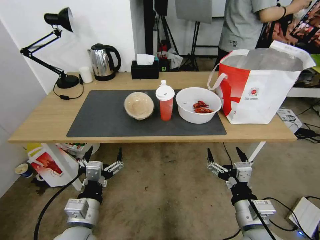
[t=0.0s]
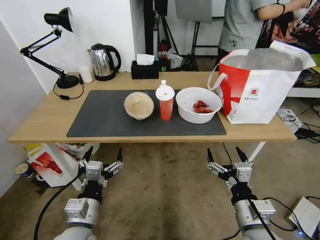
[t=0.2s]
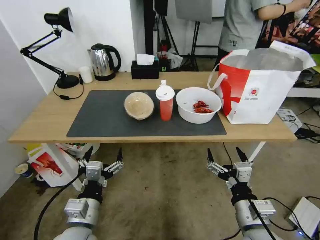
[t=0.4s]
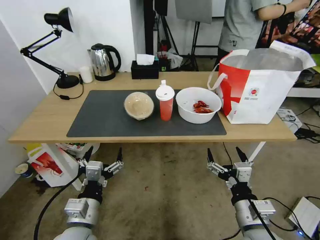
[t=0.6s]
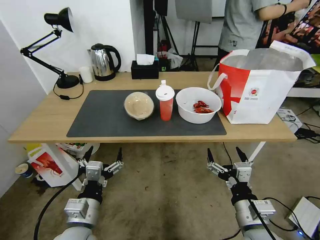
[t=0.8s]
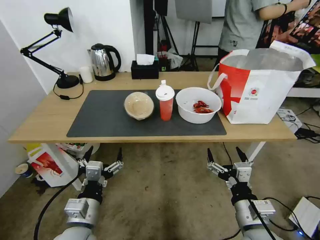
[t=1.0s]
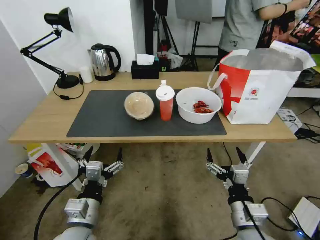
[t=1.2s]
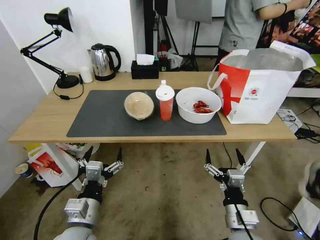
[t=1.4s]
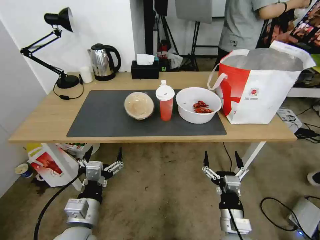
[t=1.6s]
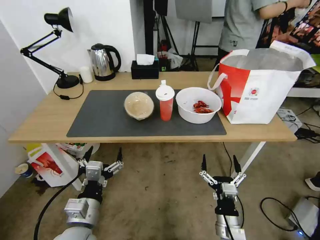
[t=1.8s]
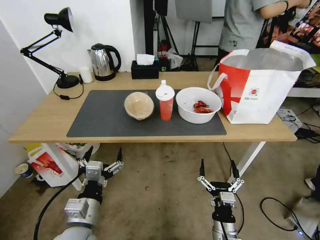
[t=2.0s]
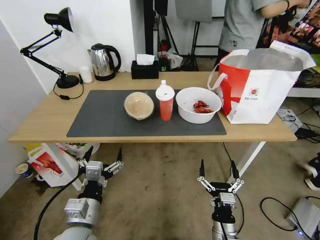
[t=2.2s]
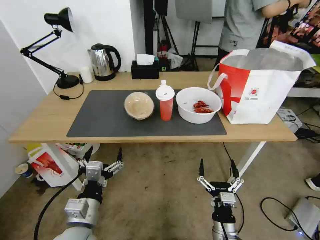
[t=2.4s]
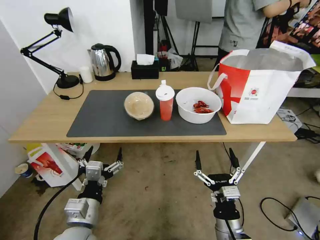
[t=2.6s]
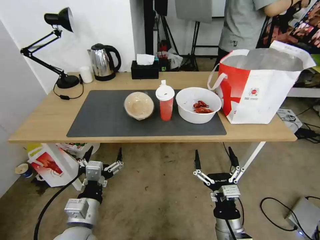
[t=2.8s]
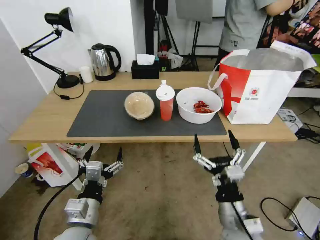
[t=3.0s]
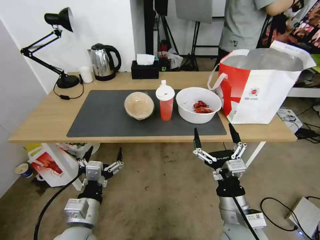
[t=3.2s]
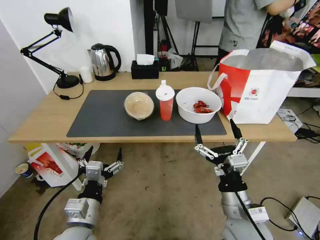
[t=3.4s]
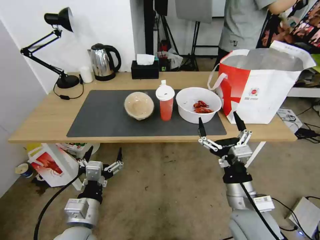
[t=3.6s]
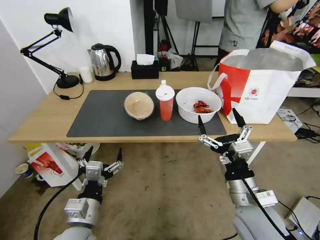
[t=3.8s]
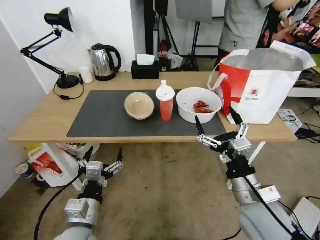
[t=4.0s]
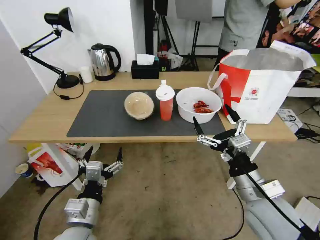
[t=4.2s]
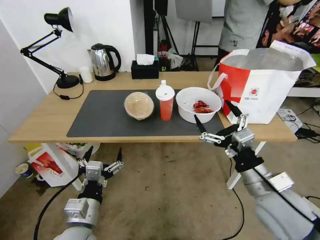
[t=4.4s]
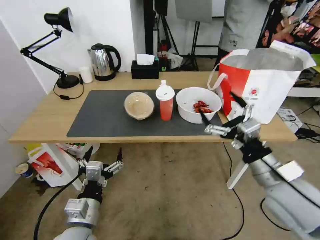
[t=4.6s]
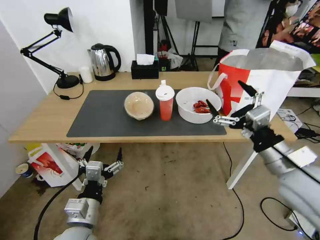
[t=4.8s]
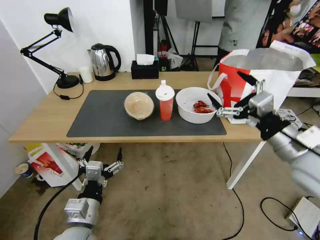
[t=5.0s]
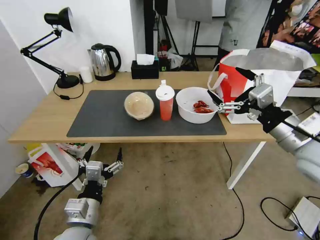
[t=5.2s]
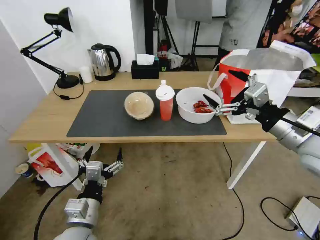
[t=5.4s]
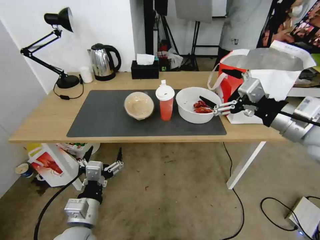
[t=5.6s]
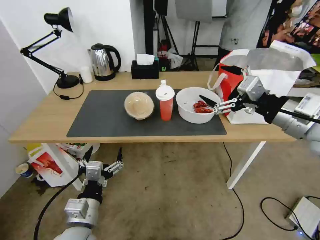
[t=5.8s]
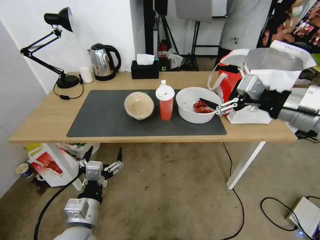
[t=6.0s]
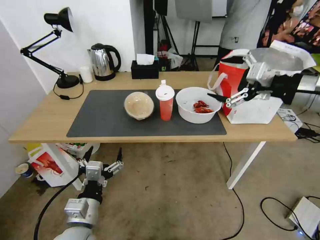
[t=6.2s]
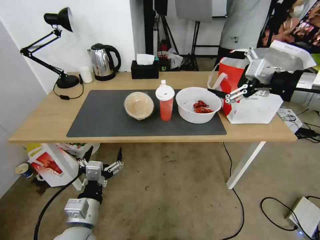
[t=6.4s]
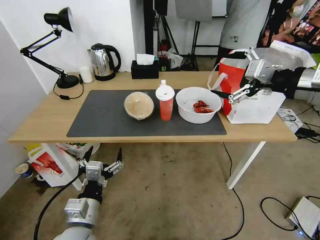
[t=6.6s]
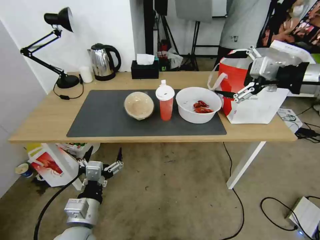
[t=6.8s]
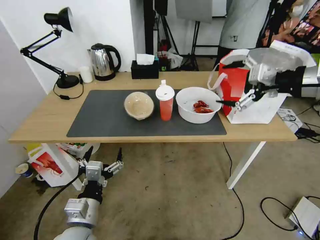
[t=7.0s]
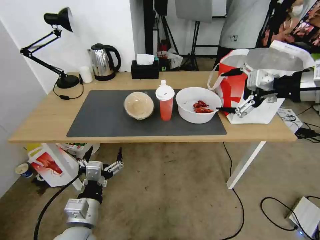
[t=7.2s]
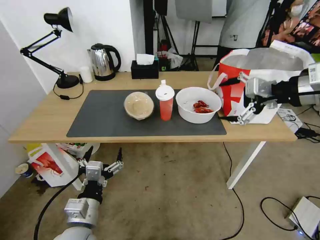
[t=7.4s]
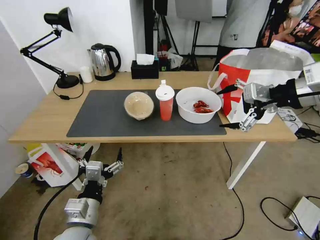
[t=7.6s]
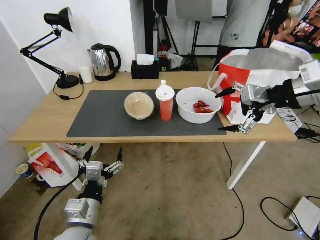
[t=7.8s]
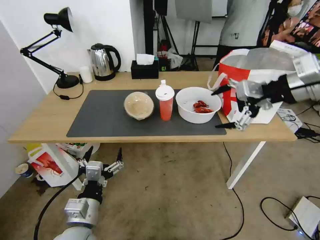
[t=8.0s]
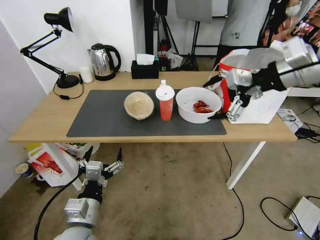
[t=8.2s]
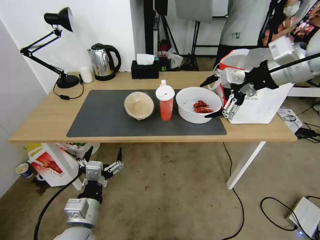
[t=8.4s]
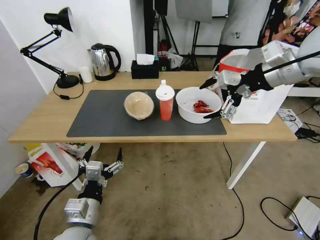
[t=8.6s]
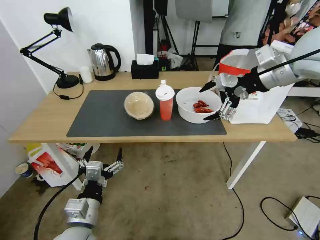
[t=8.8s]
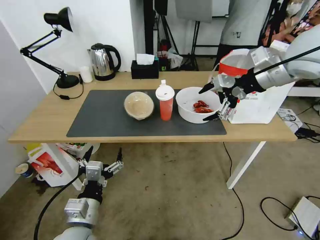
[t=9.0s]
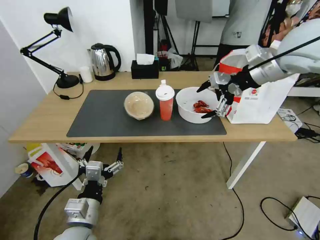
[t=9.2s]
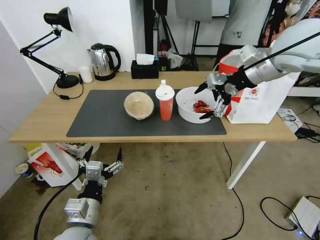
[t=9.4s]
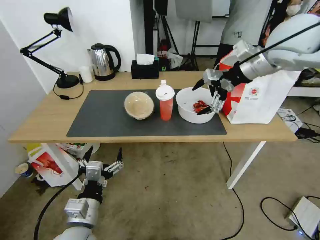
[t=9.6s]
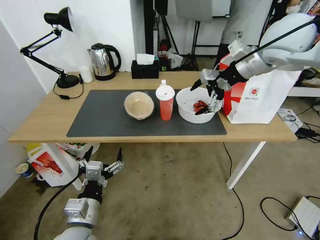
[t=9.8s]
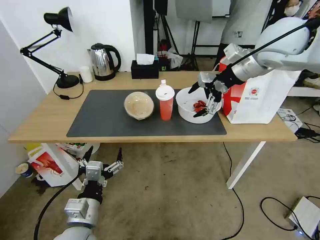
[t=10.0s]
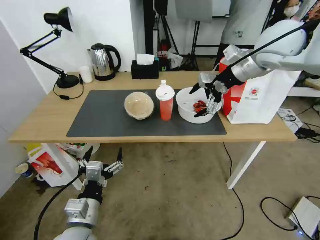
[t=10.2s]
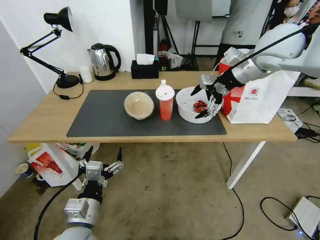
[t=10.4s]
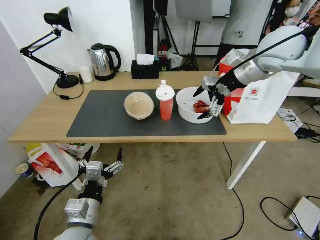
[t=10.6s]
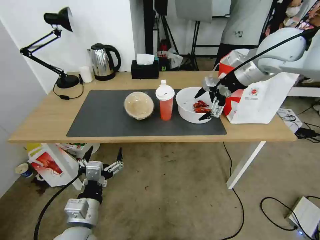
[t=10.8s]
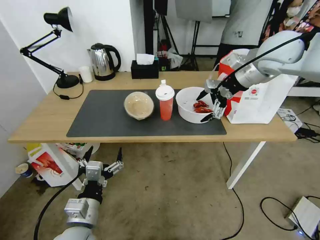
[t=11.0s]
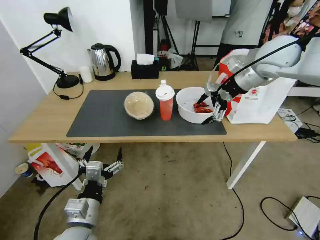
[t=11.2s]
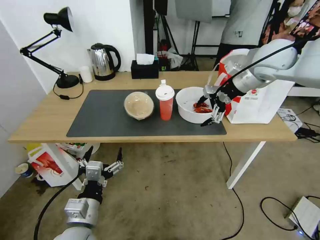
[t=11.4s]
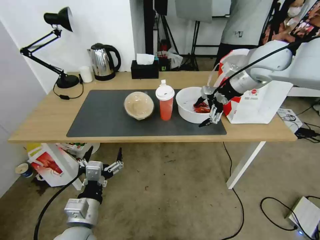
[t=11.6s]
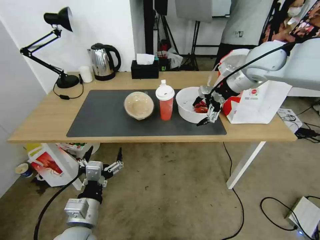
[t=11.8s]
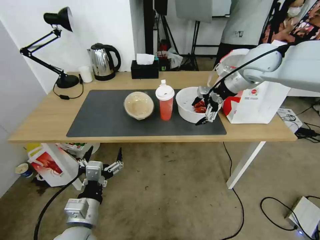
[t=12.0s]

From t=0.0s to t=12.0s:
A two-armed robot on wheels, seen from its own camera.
Task of the whole recording: Pick up the trash from the table and place it into the takeout bag.
From t=1.6s to t=3.0s: The right gripper goes approximately 5 cm upward.
From t=3.0s to t=4.4s: The right gripper is displaced upward, to the right and forward by some 15 cm.
From t=4.4s to t=6.0s: The right gripper heads upward and forward, covering about 20 cm.
From t=6.0s to t=7.6s: The right gripper heads upward and forward, covering about 10 cm.
From t=7.6s to t=9.0s: The right gripper heads forward and to the left, covering about 10 cm.
From t=9.0s to t=10.4s: The right gripper travels forward by roughly 5 cm.
From t=10.4s to t=12.0s: The right gripper moves downward, approximately 5 cm.

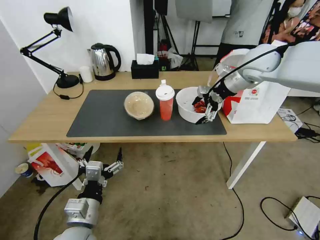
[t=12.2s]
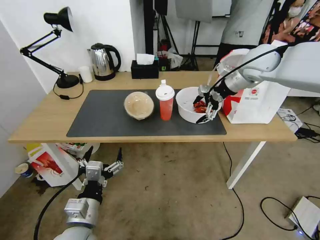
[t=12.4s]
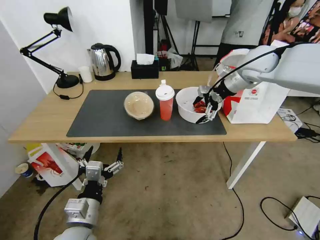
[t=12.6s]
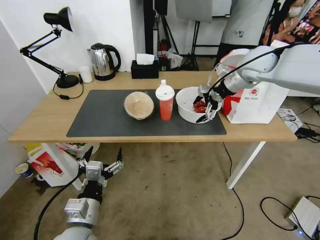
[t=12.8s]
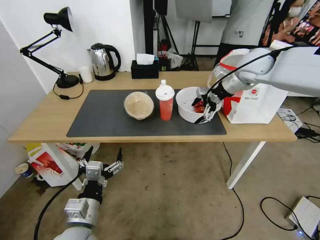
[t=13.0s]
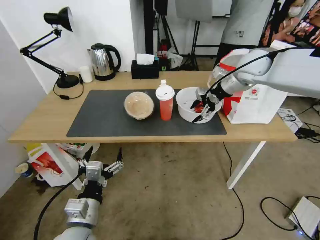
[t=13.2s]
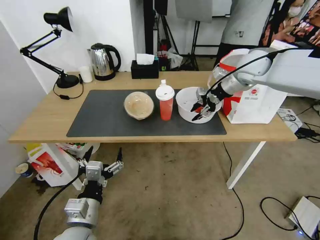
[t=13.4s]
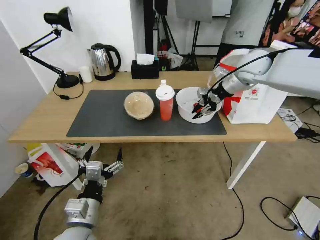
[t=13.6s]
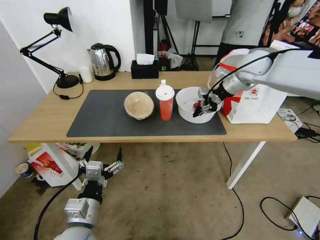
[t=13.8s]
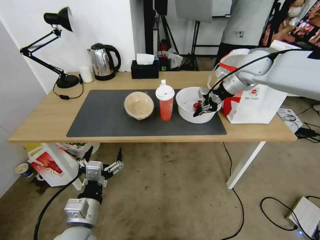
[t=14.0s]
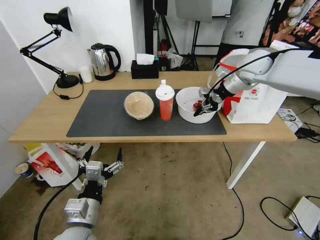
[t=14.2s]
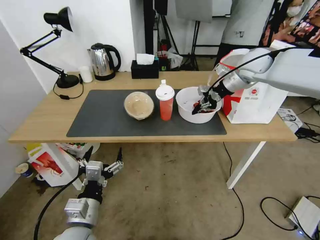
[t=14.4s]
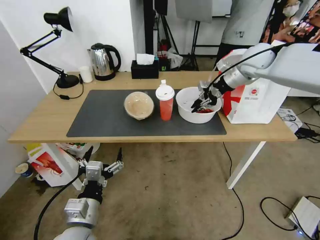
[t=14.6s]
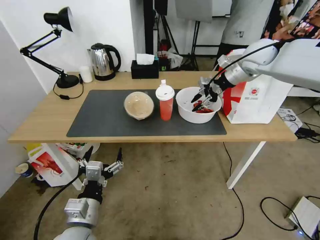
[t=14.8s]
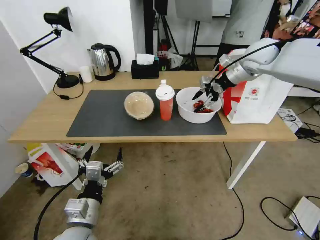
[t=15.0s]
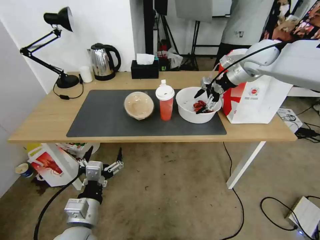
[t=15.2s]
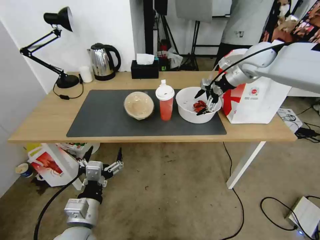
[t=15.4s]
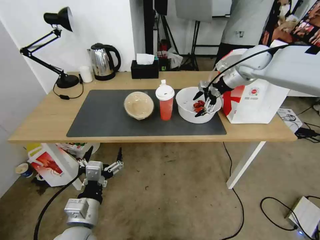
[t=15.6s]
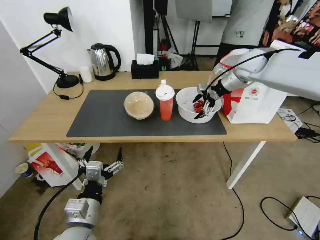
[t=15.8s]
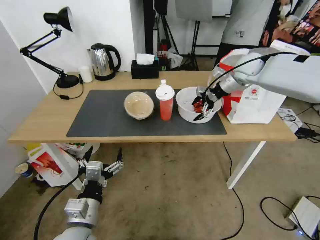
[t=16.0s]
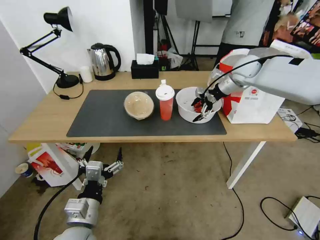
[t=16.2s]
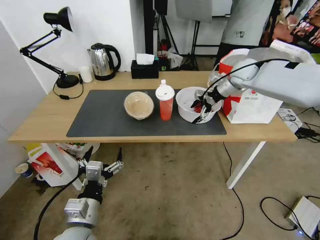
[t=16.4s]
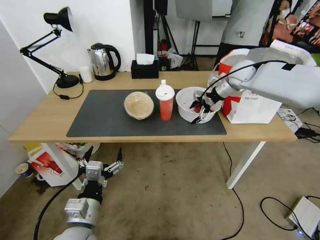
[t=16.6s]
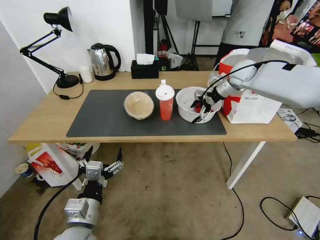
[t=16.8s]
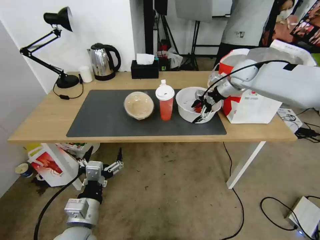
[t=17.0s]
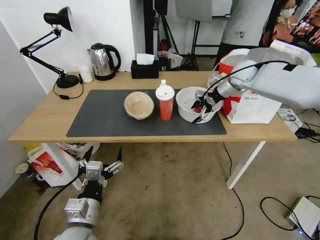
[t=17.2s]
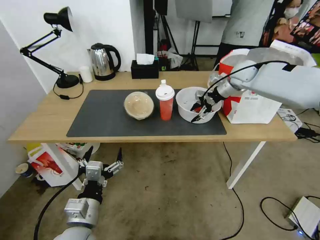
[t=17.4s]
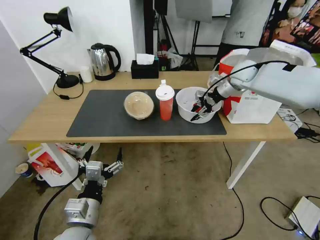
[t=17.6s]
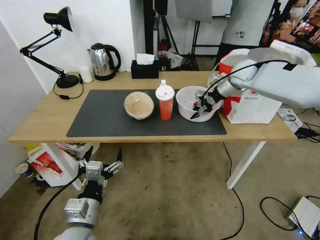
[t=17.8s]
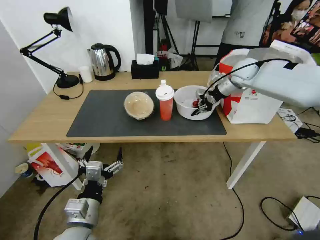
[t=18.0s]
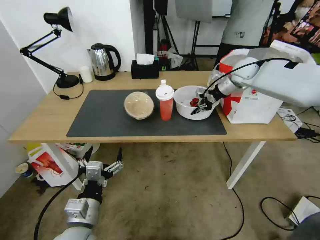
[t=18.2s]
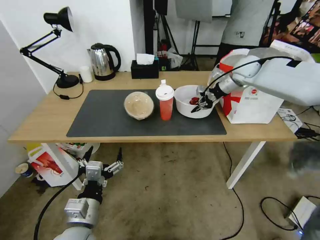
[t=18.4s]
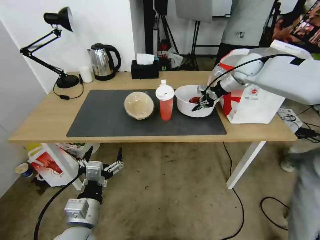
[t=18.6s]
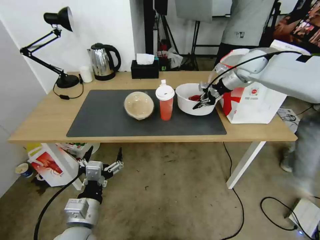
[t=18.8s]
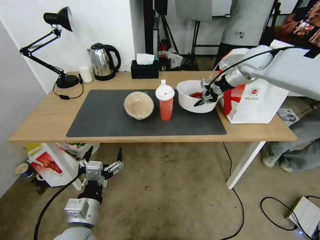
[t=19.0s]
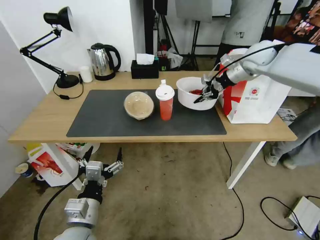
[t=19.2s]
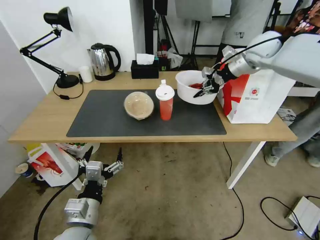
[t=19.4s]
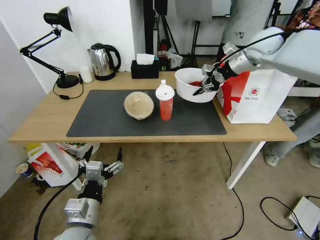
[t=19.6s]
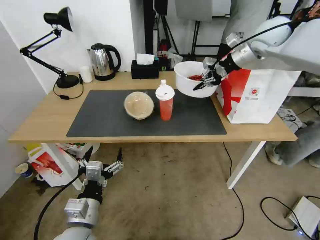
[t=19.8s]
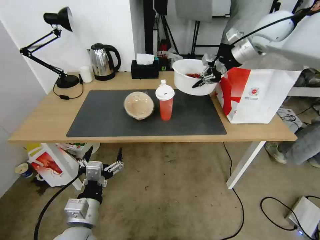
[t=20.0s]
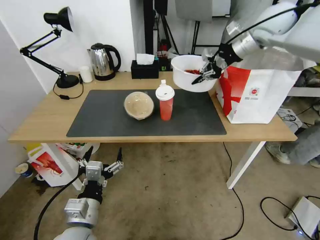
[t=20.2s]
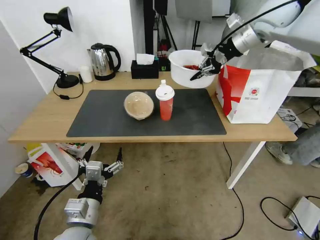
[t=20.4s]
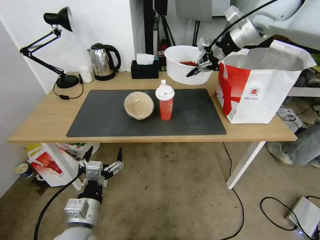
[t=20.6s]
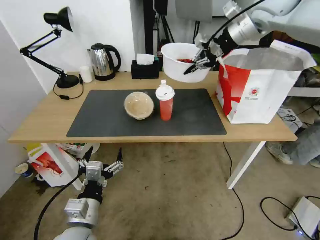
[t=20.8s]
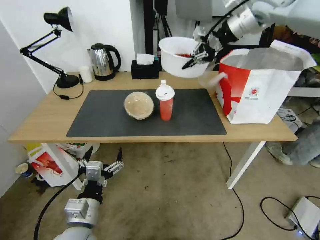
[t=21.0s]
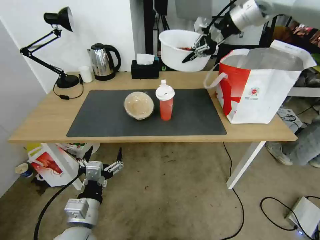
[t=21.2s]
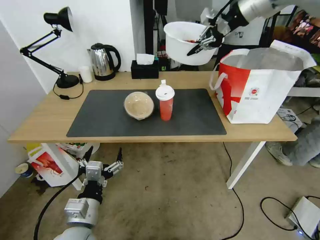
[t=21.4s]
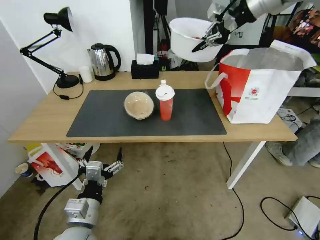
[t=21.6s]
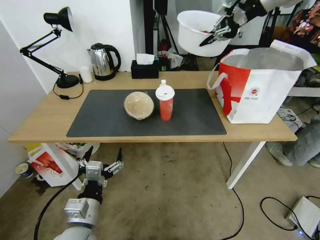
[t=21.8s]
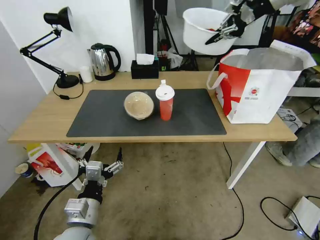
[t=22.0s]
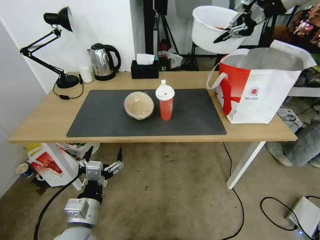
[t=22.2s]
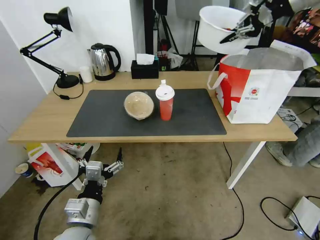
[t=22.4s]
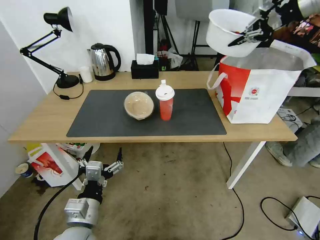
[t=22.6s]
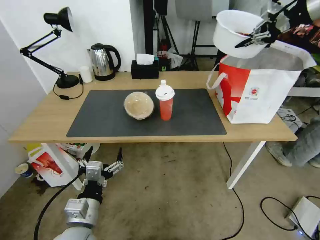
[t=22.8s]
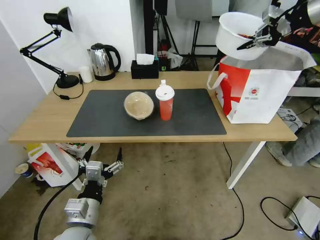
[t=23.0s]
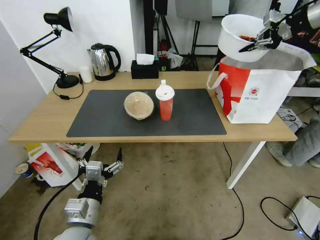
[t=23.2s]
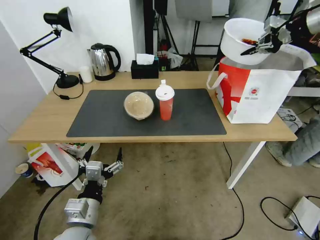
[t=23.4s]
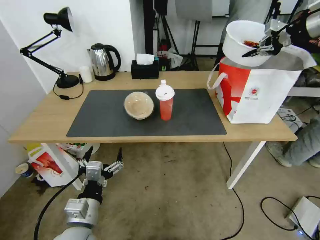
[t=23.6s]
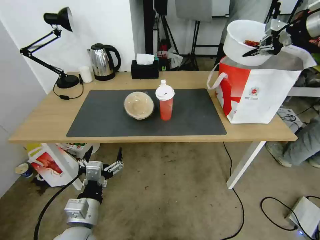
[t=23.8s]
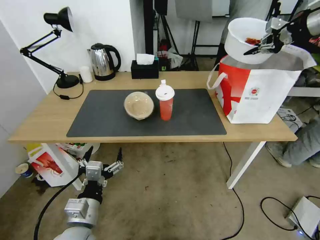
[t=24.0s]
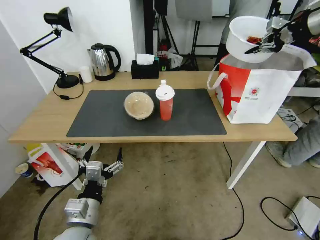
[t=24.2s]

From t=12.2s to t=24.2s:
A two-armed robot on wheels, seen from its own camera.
Task of the whole recording: Pick up the trash from the table and place it into the takeout bag.
From t=12.2s to t=13.8s: The right gripper closes.
From t=13.8s to t=15.2s: The right gripper opens its fingers.
From t=15.2s to t=16.6s: The right gripper heads downward, covering approximately 10 cm.
From t=16.6s to t=18.2s: The right gripper closes.
From t=18.2s to t=19.8s: The right gripper heads upward, covering about 10 cm.
From t=19.8s to t=21.2s: The right gripper shifts some 15 cm upward.
From t=21.2s to t=22.6s: The right gripper shifts about 15 cm to the right.
From t=22.6s to t=24.2s: The right gripper heads to the right, covering approximately 5 cm.
